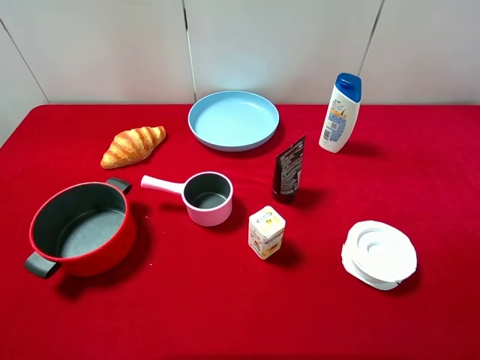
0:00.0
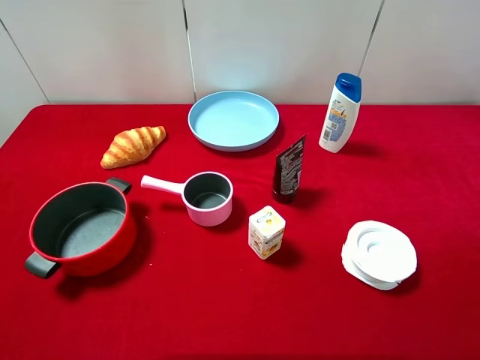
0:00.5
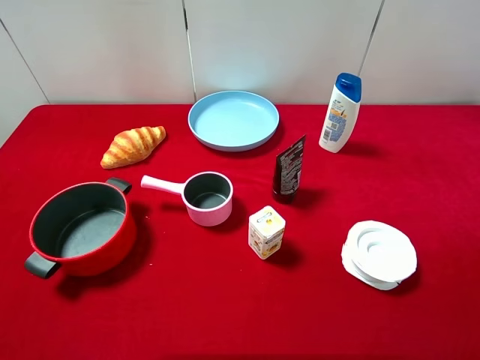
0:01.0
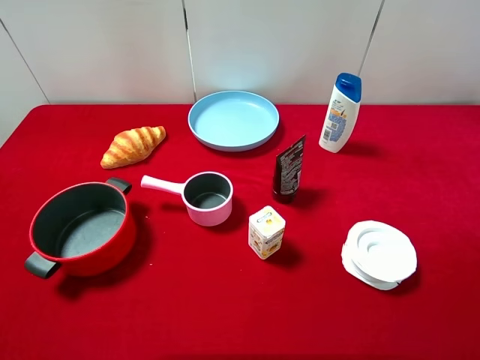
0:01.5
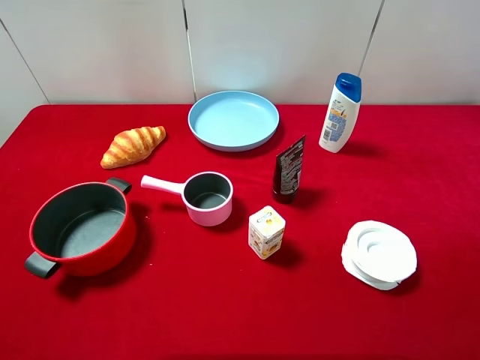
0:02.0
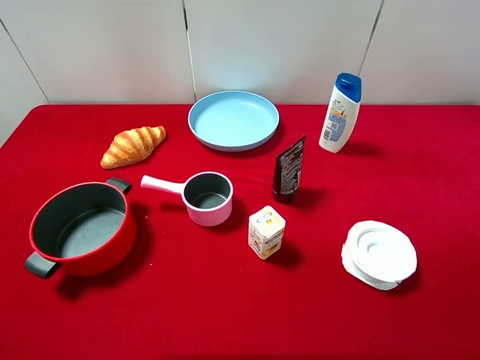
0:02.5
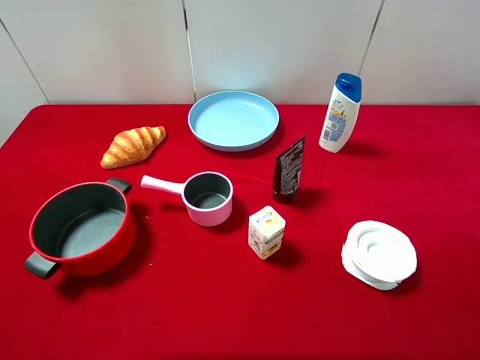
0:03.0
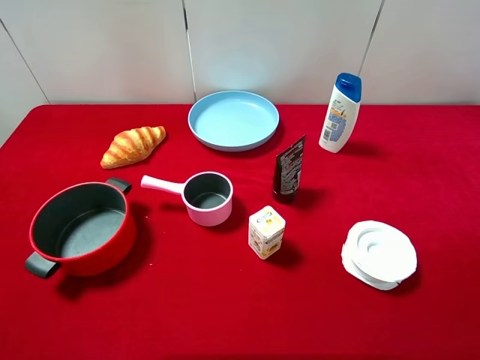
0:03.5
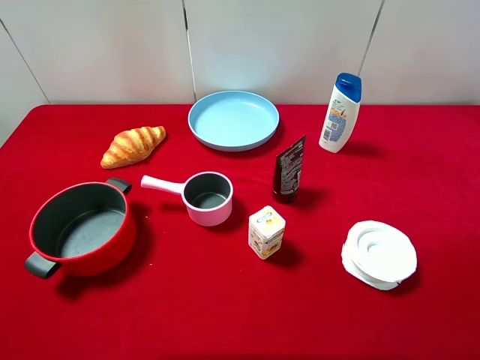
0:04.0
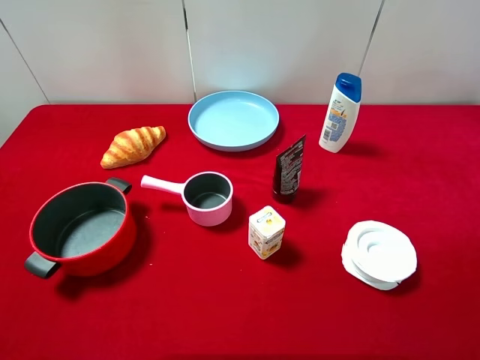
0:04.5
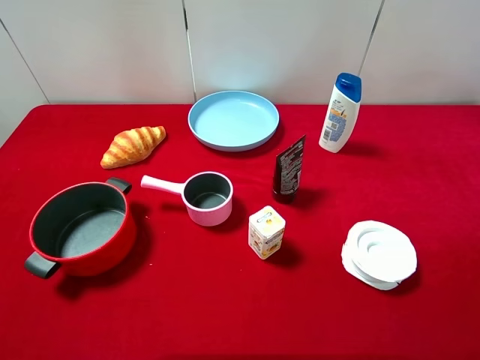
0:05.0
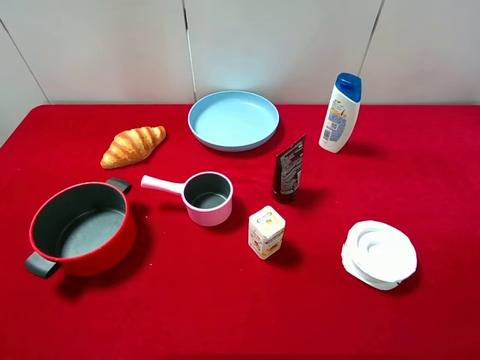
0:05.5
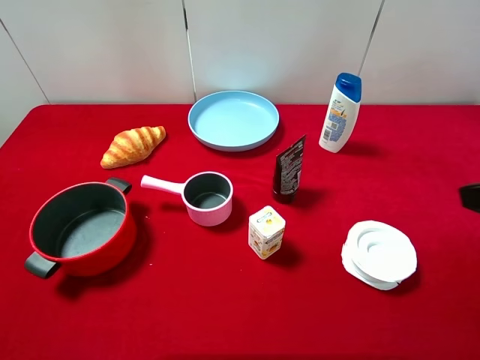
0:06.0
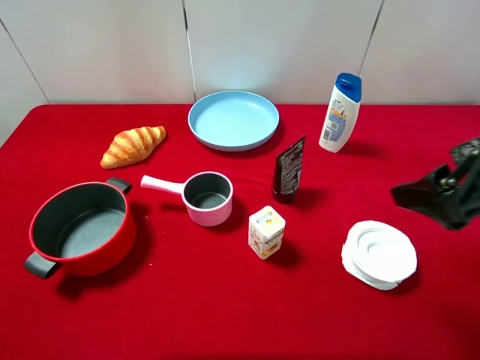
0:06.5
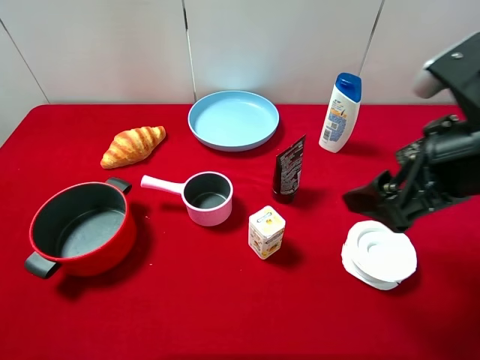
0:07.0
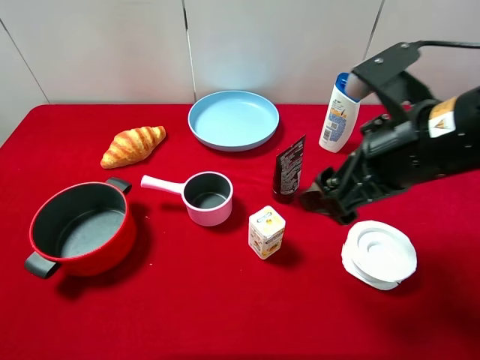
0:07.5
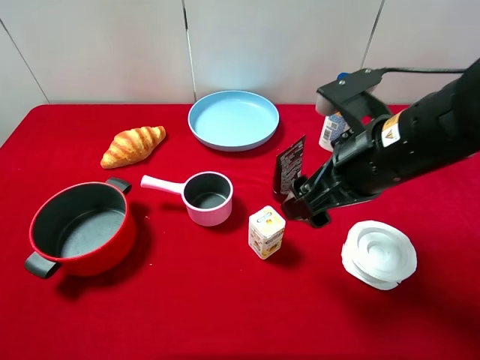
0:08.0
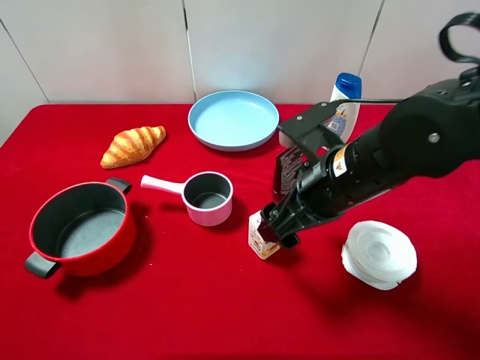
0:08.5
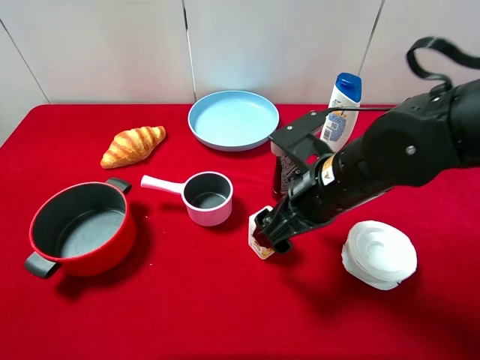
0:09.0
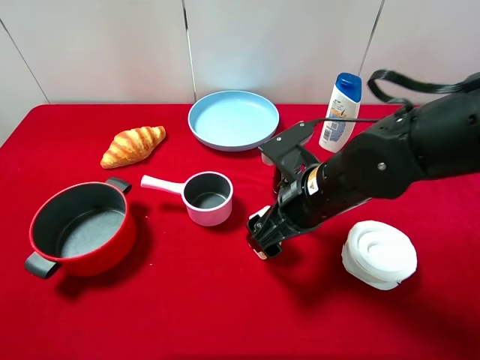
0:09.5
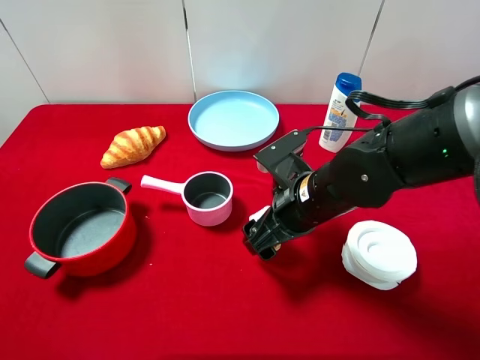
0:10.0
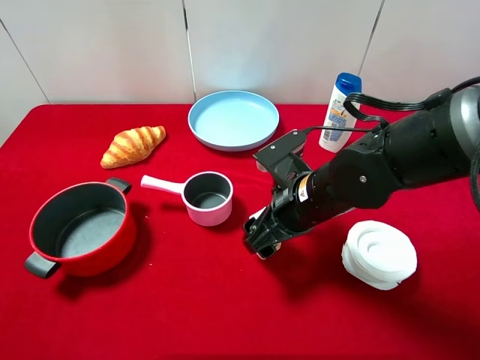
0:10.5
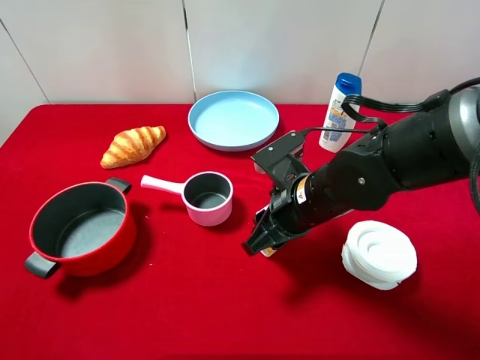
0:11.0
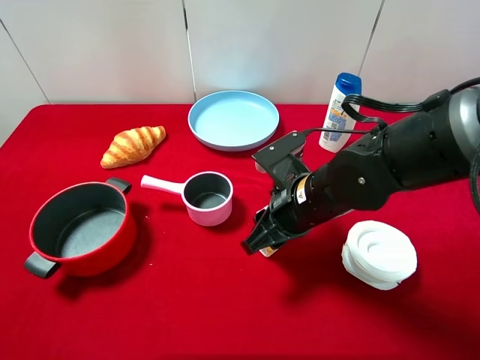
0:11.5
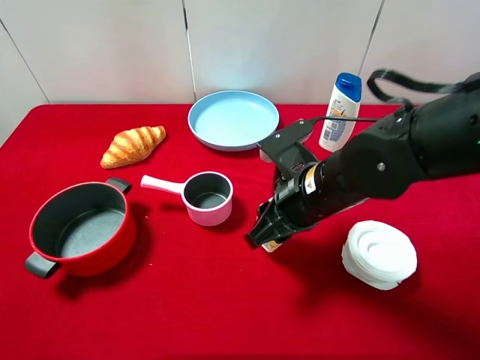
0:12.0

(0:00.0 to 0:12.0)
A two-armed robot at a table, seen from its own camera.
Task of the whole recording: pick up an item with a gripper and place it in a random container on the desktop.
0:00.0 - 0:02.0: Neither gripper changes place.
0:06.0 - 0:08.0: The right gripper is displaced to the left, forward and downward by roughly 20 cm.
0:08.0 - 0:10.0: The right gripper shifts roughly 10 cm downward.
0:10.0 - 0:12.0: The right gripper closes its fingers.

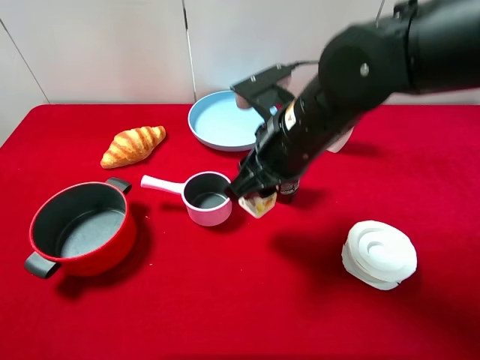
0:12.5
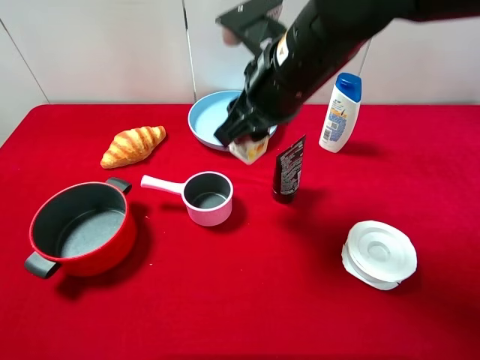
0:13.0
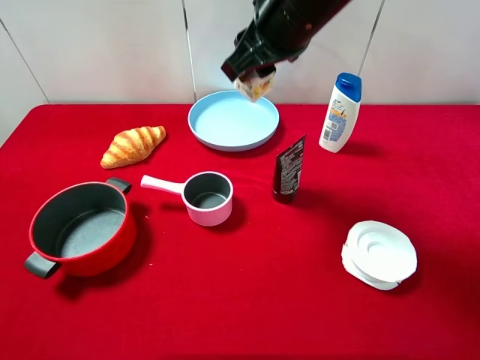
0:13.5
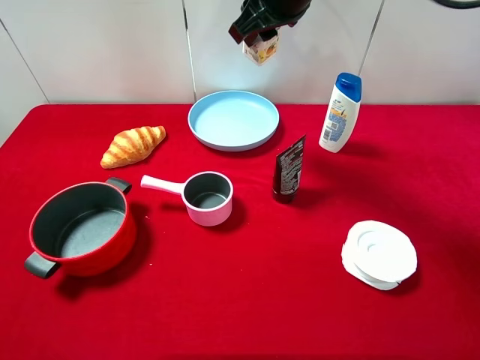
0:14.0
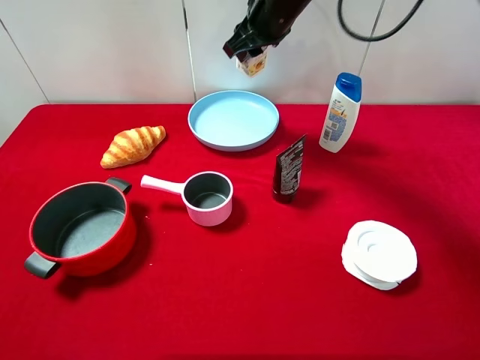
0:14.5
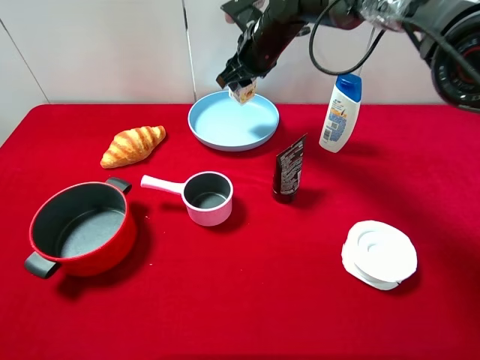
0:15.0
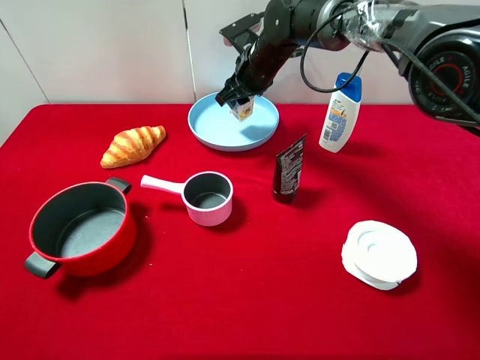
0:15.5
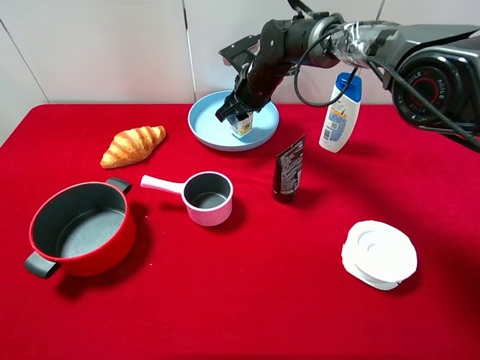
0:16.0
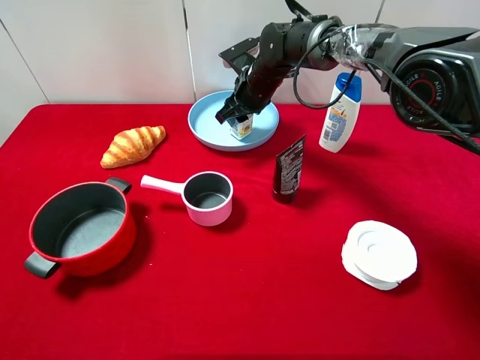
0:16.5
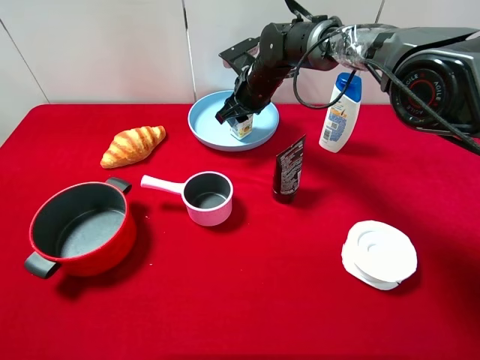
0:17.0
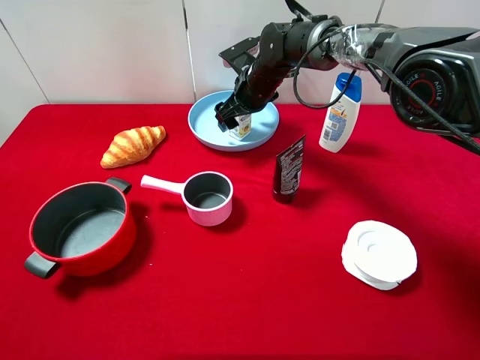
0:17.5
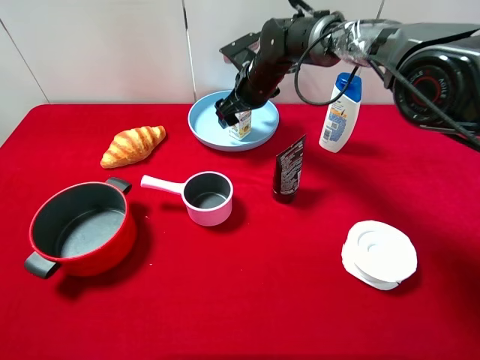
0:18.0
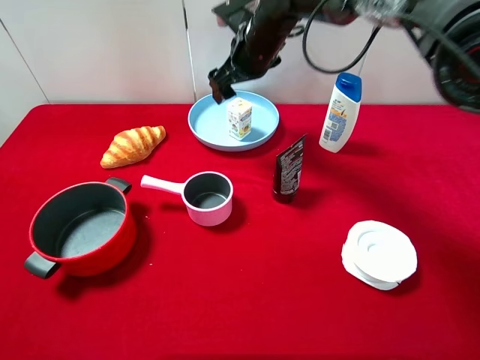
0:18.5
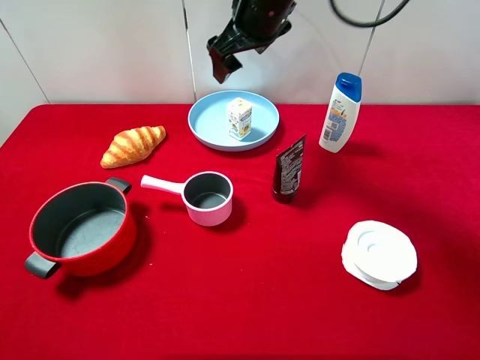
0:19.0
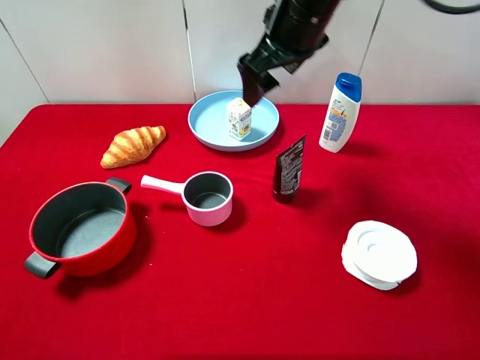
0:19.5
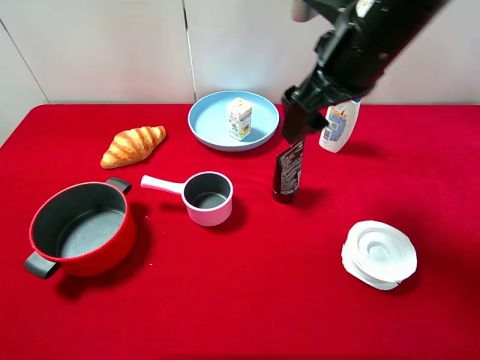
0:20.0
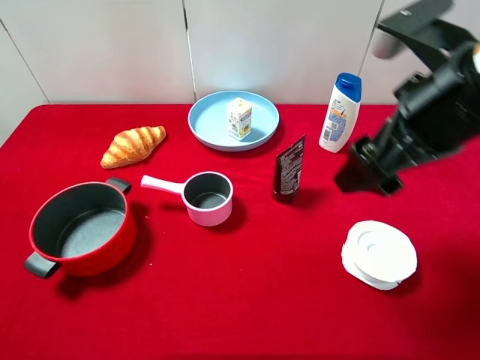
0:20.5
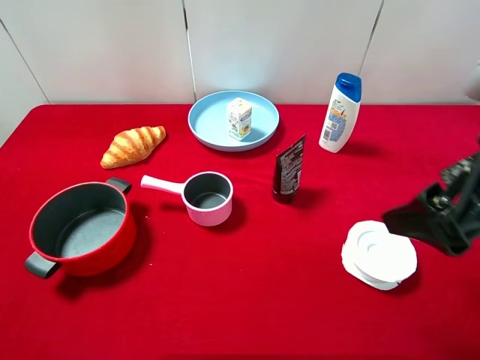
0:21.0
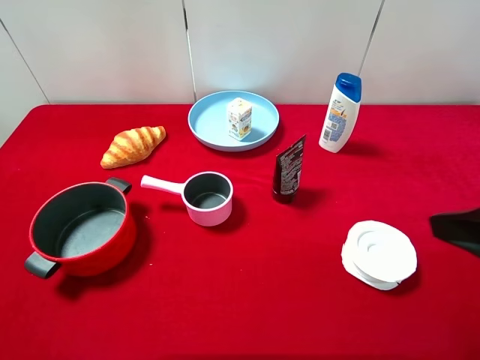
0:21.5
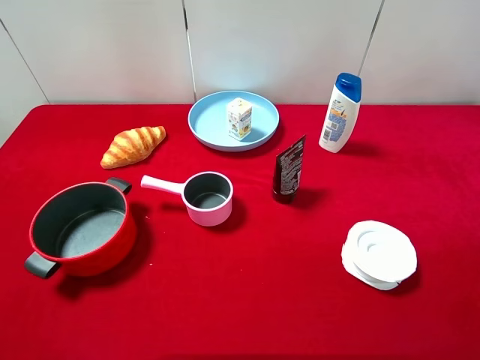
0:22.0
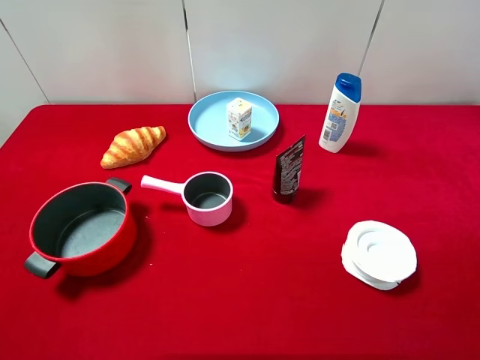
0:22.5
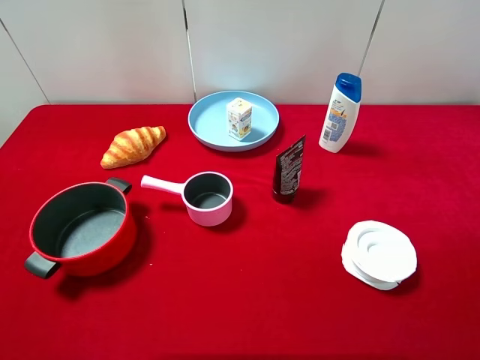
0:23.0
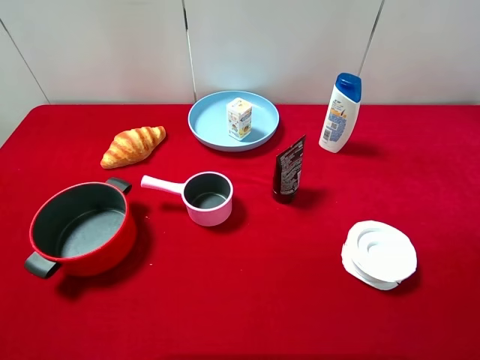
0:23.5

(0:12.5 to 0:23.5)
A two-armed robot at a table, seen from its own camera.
Task of the whole recording: pick up an item with a gripper and place it in a random container on the desktop.
0:12.5 - 0:14.5: The right gripper shifts approximately 20 cm forward.
0:14.5 - 0:16.0: The right gripper heads downward, covering approximately 10 cm.
0:16.0 - 0:18.0: The right gripper opens.
0:18.0 - 0:20.0: The right gripper is displaced backward, upward and to the right by approximately 25 cm.
0:20.0 - 0:21.5: The right gripper goes approximately 25 cm backward and to the right.
0:21.5 - 0:23.5: The right gripper is displaced backward by about 10 cm.

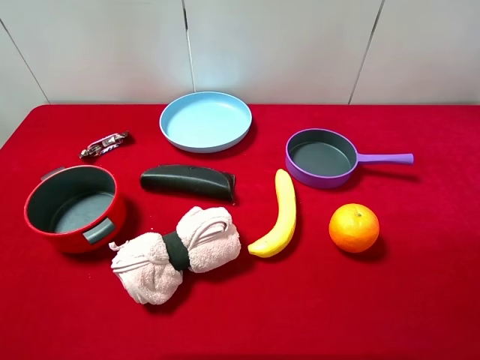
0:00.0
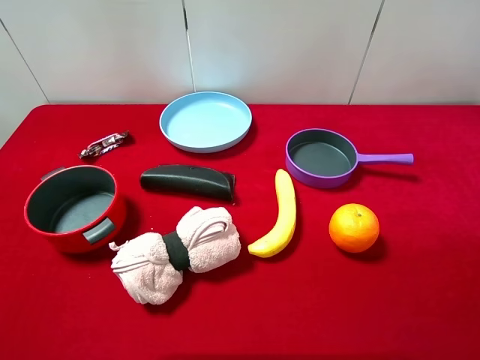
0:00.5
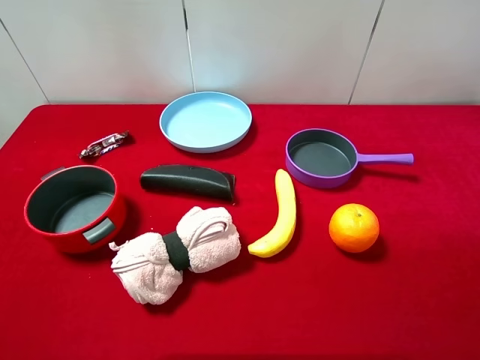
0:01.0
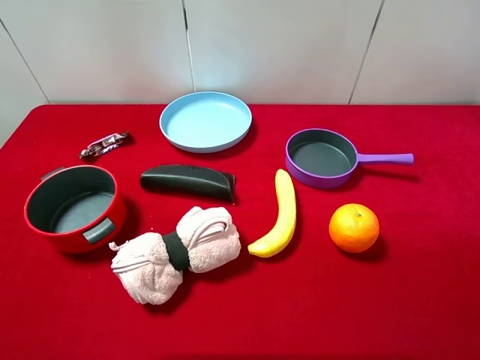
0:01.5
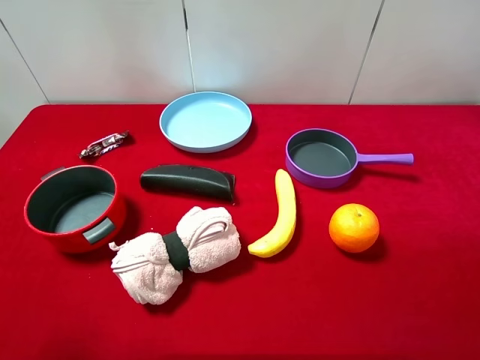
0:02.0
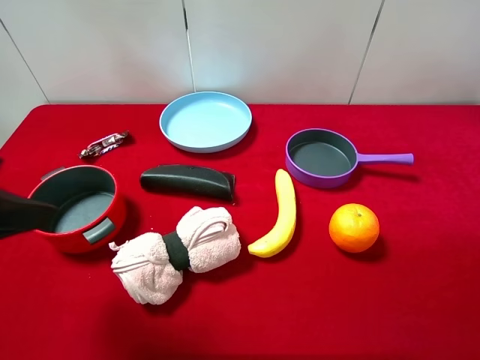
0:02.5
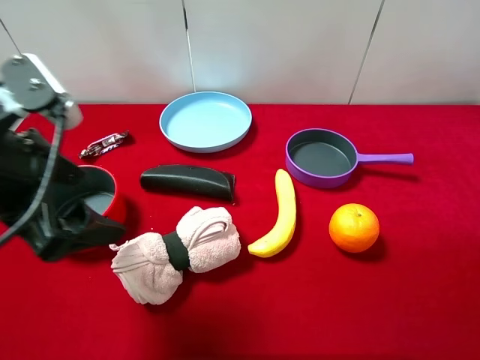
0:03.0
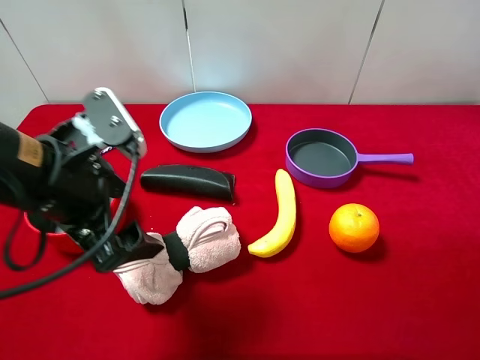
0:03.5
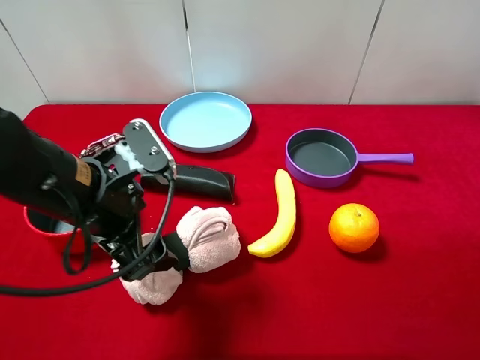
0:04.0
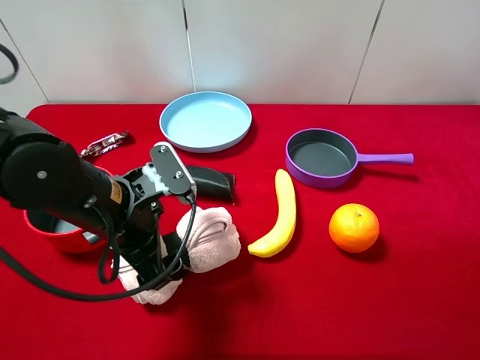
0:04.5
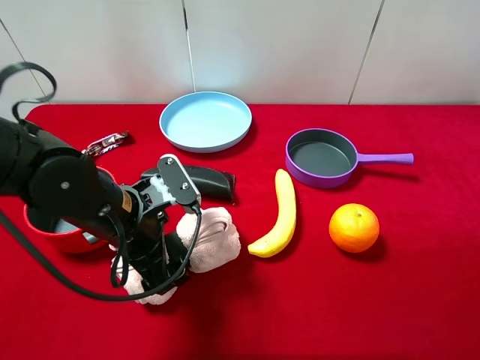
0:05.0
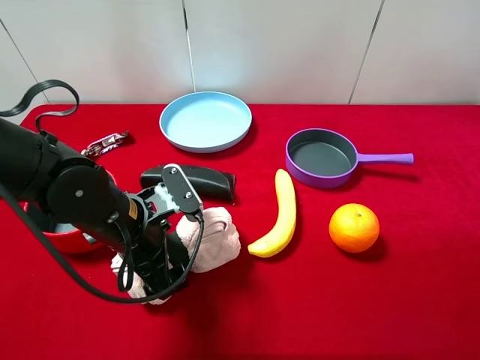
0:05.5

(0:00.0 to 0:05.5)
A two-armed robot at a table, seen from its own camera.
Task of the whole recording: pick up an item with a gripper and place it in a random container on the desktop.
0:02.0 - 0:03.5: The left gripper moves to the right, forward and downward, roughly 20 cm.
0:03.5 - 0:05.5: The left gripper shifts roughly 10 cm downward.
